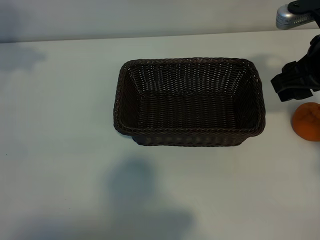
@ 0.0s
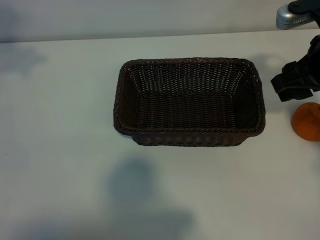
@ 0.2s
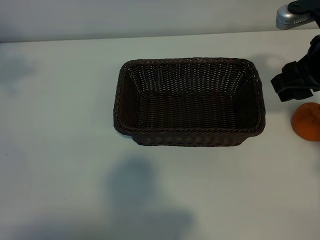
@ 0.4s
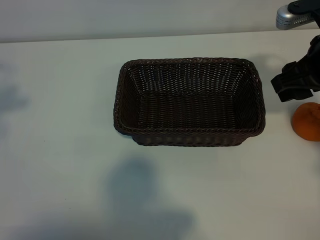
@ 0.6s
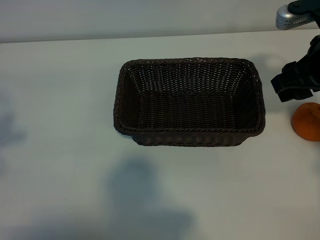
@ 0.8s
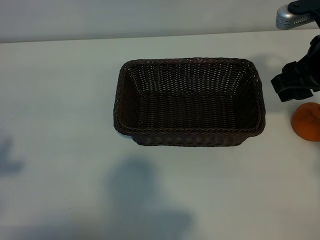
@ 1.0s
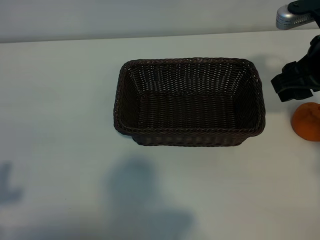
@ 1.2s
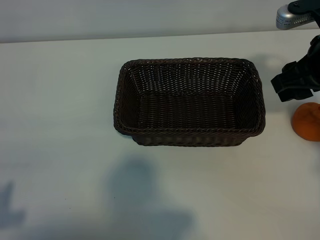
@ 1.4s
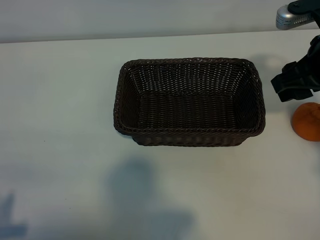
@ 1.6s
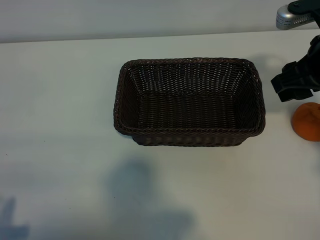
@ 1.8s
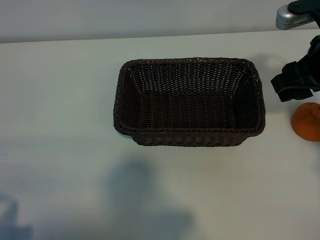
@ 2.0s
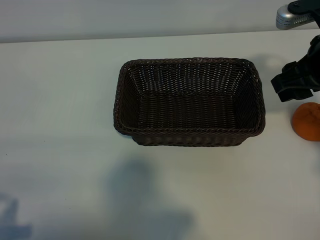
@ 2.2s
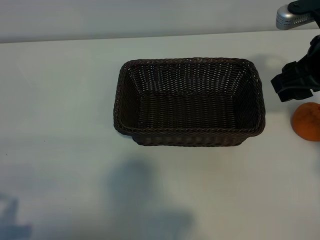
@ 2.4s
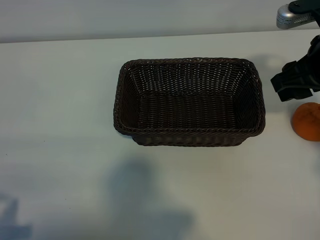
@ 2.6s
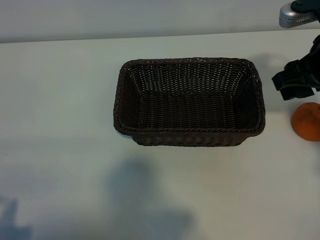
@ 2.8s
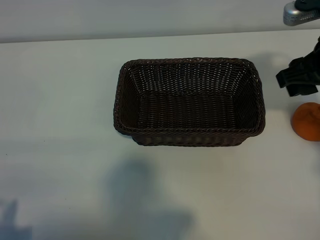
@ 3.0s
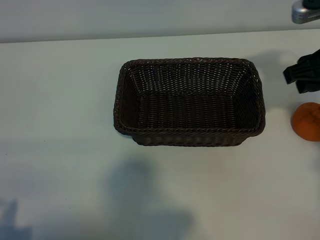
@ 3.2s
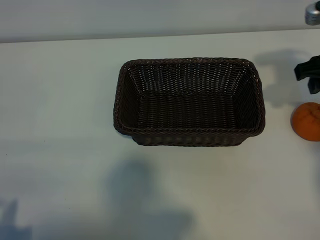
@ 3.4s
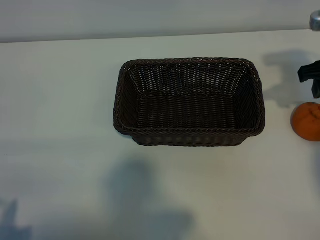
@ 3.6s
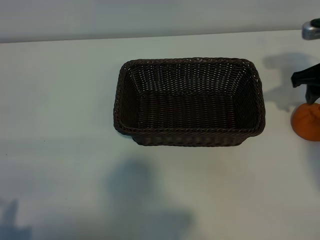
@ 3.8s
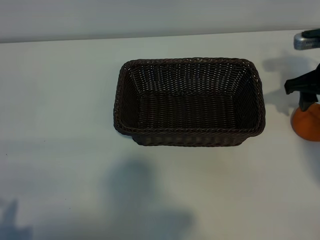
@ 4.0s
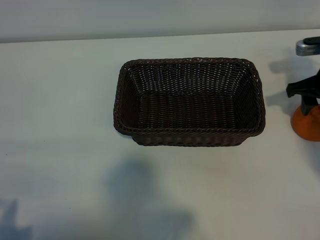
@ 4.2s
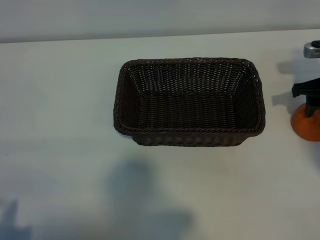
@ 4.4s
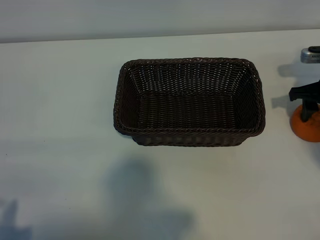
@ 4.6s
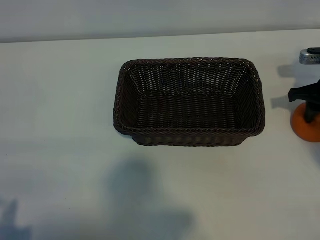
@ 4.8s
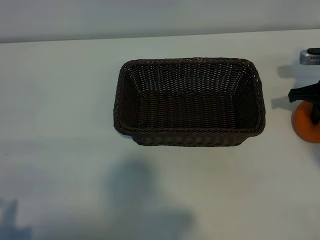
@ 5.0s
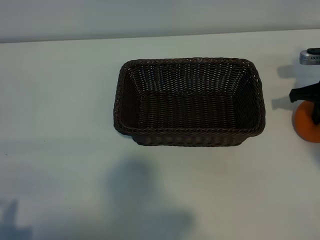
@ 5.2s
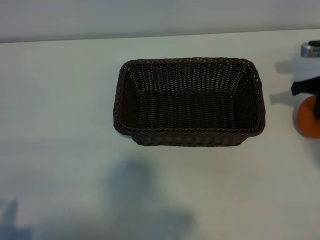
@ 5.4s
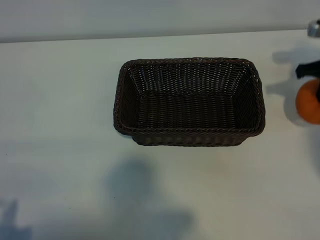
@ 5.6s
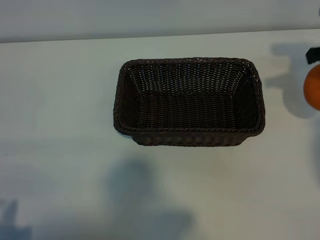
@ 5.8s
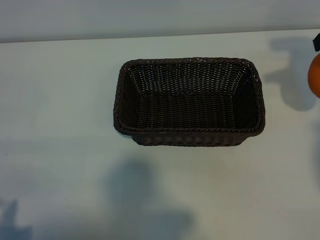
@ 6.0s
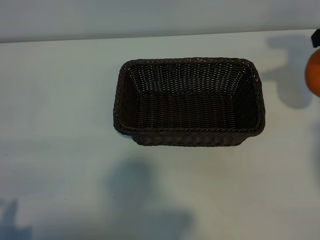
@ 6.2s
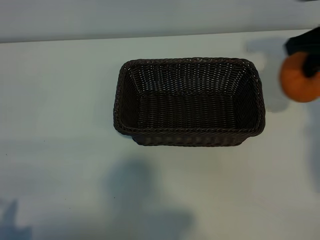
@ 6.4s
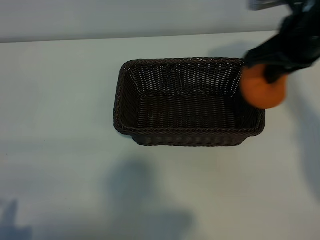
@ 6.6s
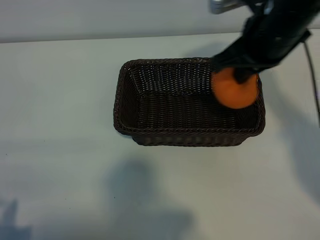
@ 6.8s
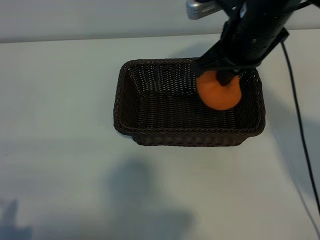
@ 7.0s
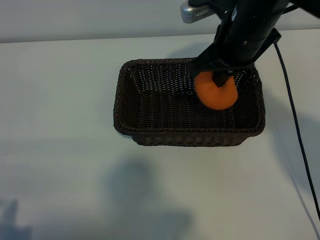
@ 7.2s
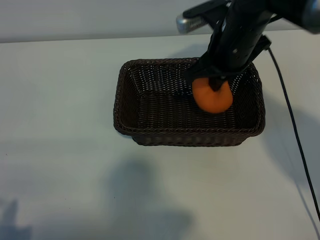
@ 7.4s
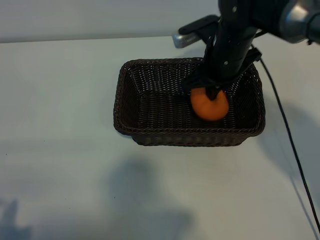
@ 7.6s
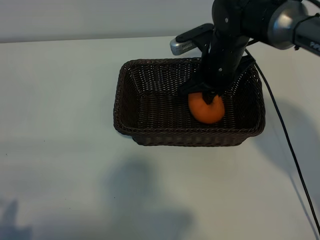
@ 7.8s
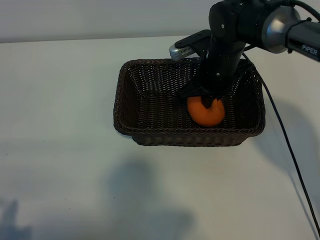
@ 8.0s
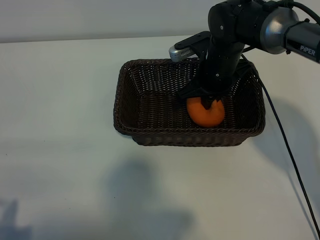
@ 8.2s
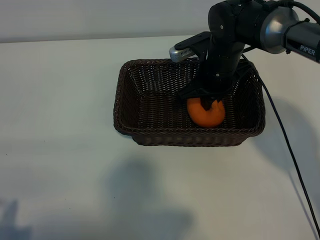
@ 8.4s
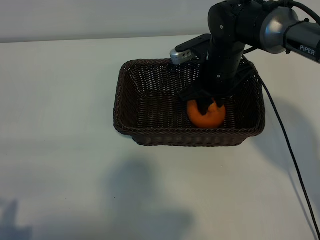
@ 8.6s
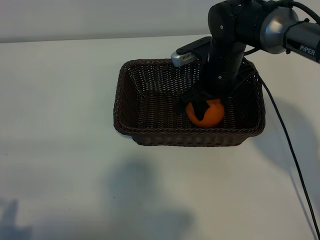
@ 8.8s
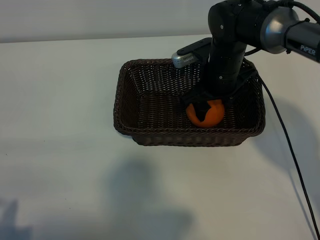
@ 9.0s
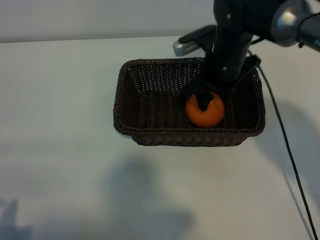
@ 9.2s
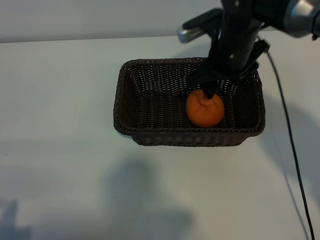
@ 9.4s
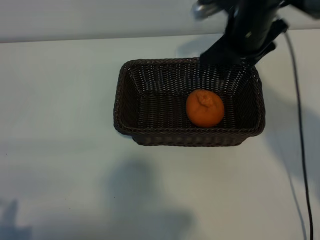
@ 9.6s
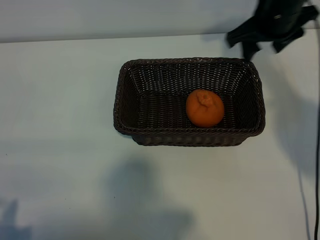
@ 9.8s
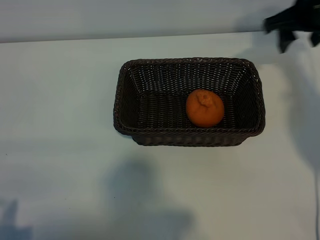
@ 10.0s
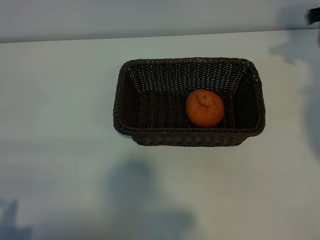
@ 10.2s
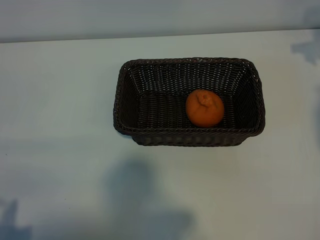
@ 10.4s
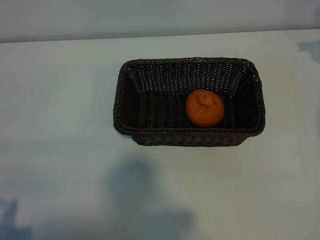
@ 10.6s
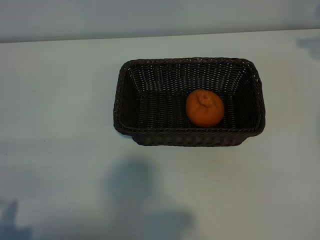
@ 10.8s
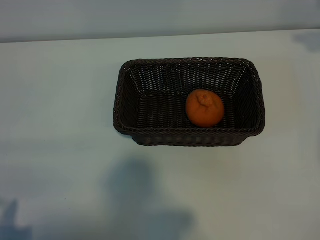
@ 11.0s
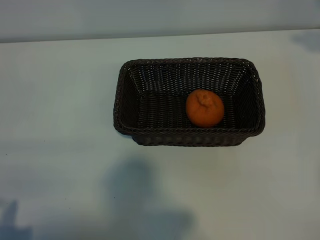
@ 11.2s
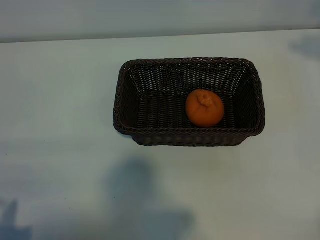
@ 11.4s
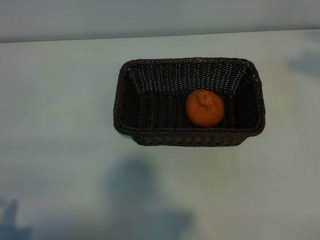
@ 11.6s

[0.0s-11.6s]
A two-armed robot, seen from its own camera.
Task of the whole recording: pick up the orange and put it into the basket.
Step, 0.0s to 5.0s: Grasp the orange with right gripper.
Step, 5.2s to 8.6s: Place the orange in the basket with right gripper.

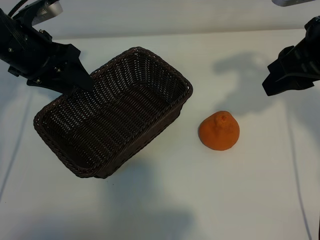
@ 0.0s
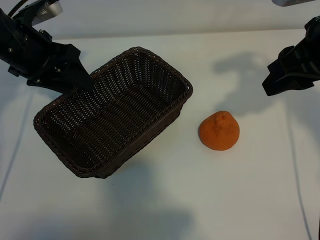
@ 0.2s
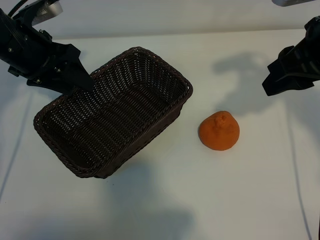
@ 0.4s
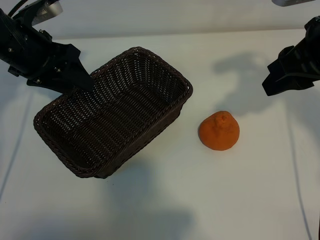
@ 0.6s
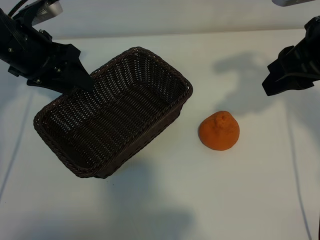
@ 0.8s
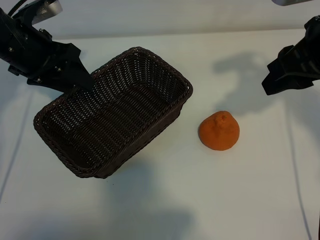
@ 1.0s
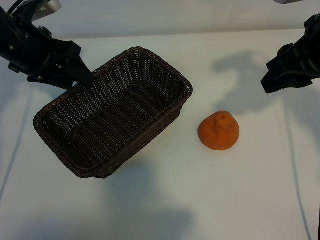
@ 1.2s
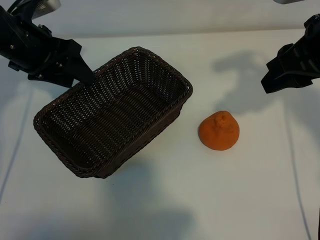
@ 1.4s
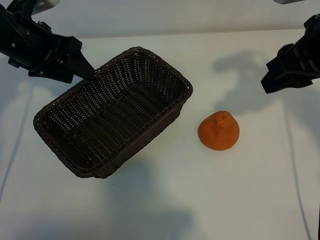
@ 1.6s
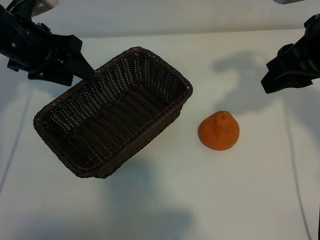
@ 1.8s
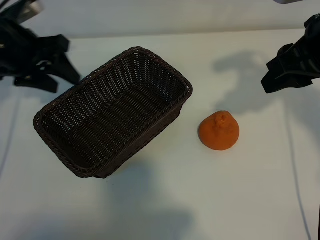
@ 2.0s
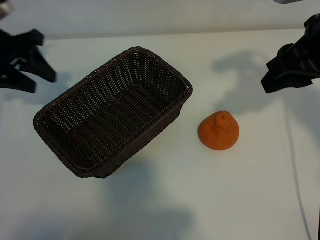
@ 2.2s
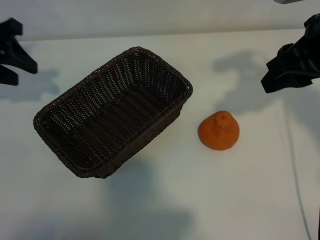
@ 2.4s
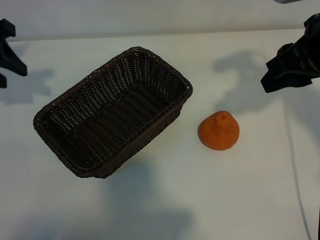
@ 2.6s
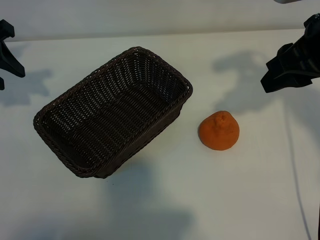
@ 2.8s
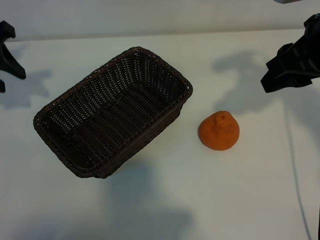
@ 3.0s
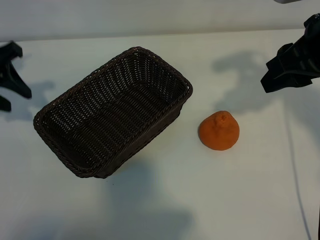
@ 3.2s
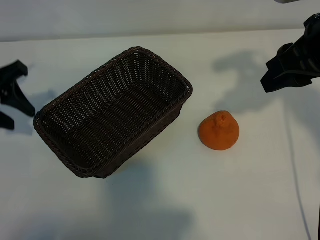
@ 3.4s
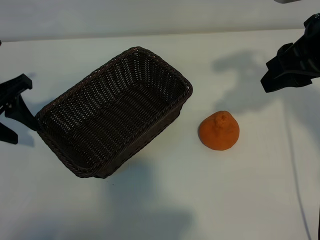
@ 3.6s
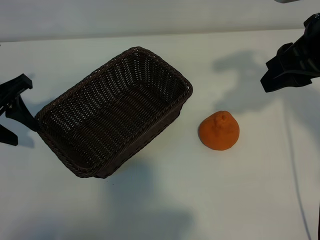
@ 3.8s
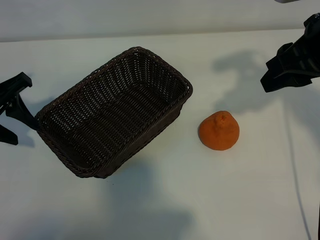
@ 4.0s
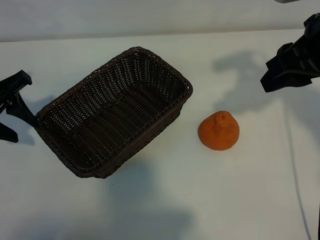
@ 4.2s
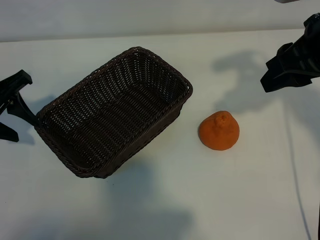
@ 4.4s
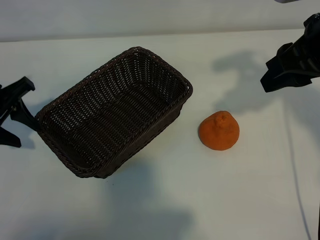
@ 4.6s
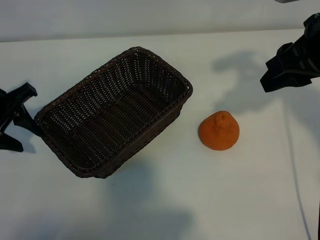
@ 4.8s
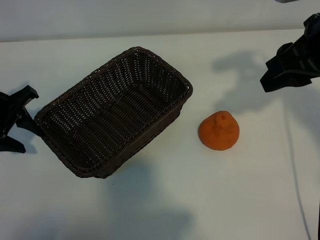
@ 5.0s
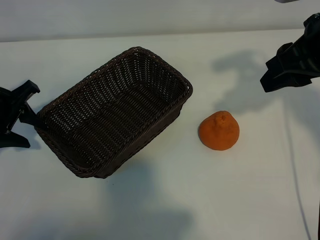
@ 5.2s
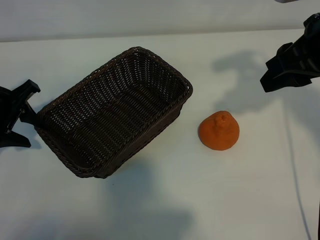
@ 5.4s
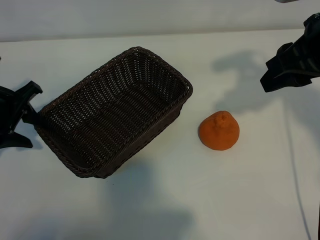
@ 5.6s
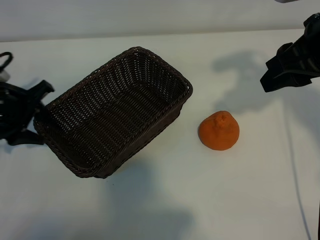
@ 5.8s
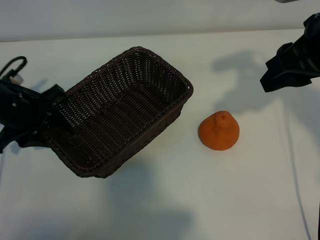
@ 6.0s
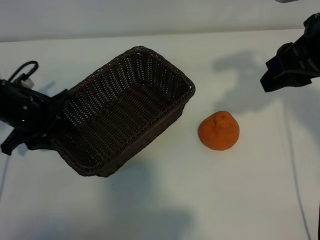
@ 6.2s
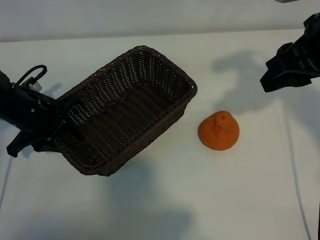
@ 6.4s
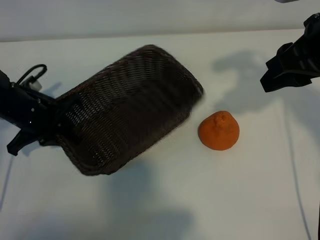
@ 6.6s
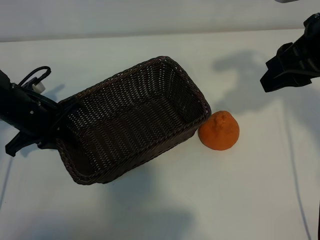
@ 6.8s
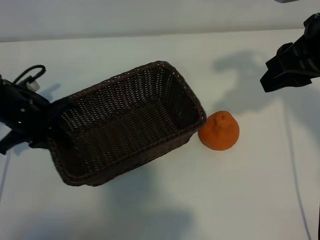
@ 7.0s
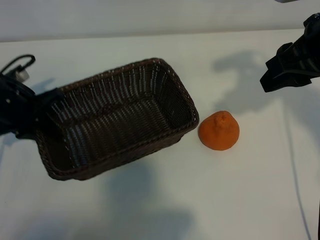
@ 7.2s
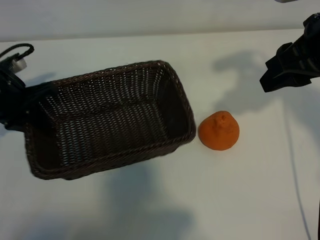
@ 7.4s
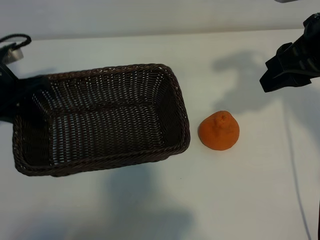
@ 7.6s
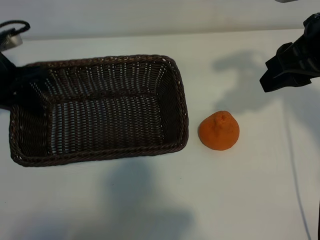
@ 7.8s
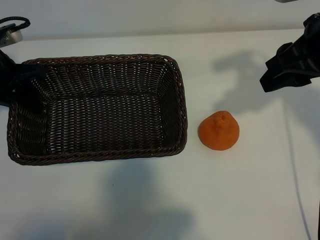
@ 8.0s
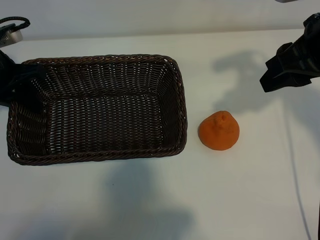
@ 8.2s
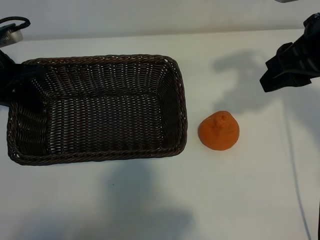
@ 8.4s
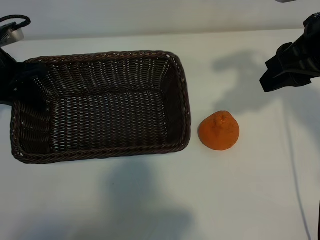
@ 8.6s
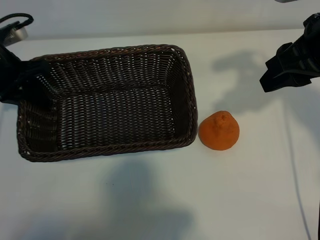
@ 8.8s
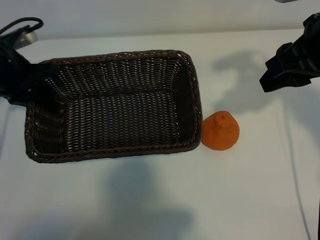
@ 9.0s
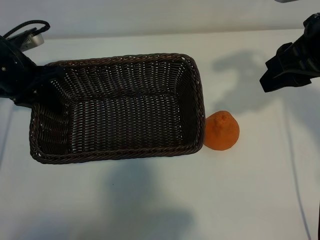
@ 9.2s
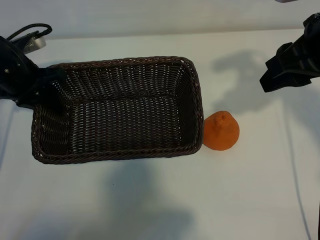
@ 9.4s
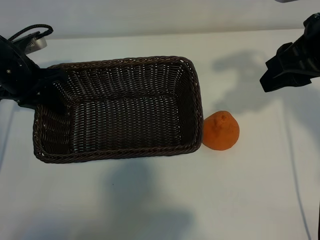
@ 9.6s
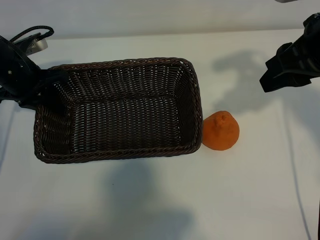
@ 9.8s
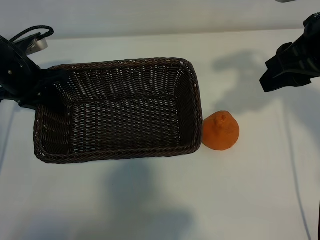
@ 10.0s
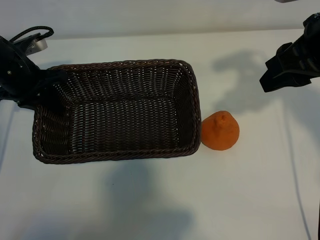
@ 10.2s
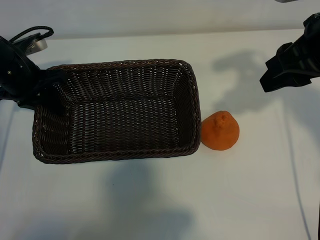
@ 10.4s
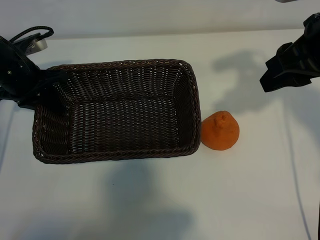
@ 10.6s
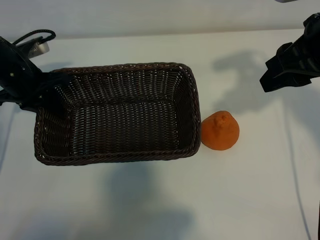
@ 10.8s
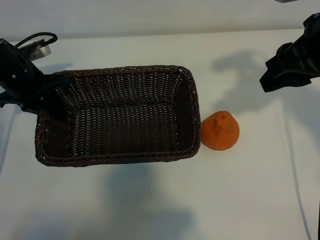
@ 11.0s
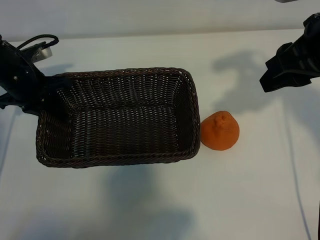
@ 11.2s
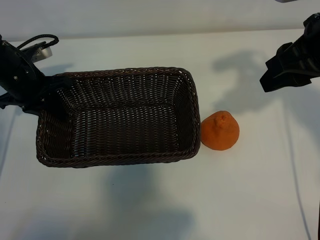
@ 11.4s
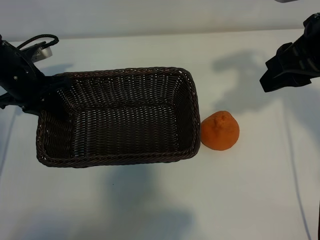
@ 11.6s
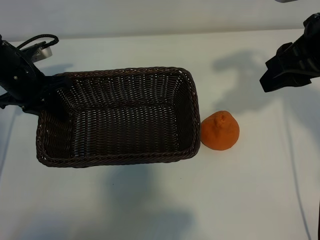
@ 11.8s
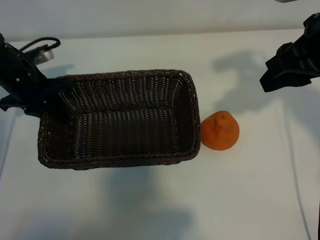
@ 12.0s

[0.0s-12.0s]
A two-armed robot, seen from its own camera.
Task of the whole recording: pick up the orange and put it into the basket.
Step, 1.0s to 6.6s: Grasp the basket with left gripper.
